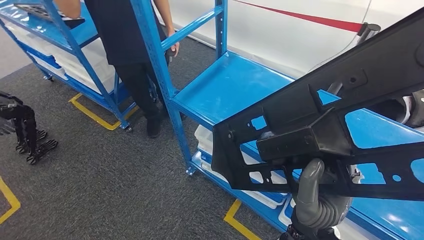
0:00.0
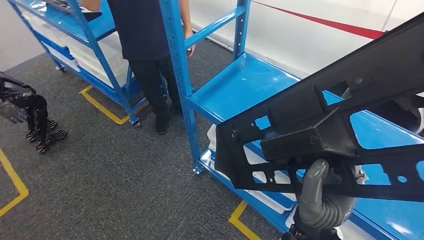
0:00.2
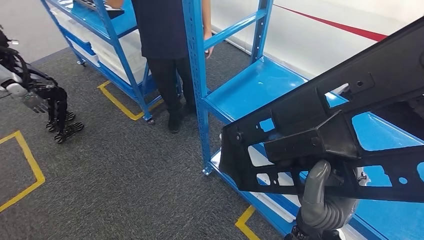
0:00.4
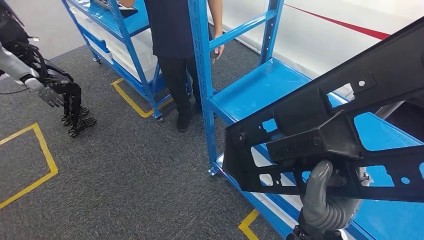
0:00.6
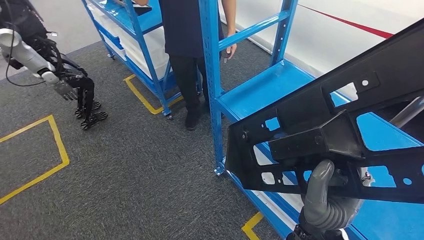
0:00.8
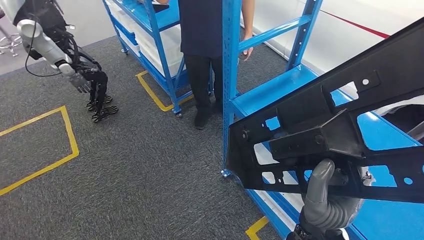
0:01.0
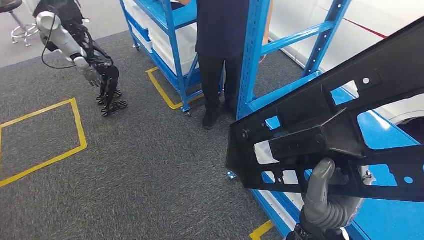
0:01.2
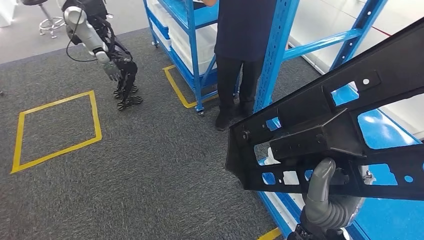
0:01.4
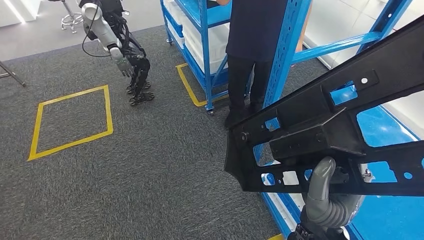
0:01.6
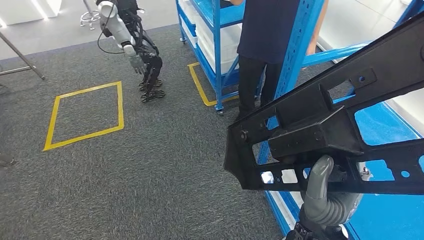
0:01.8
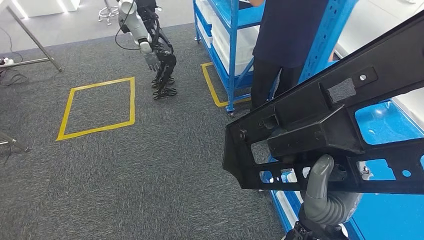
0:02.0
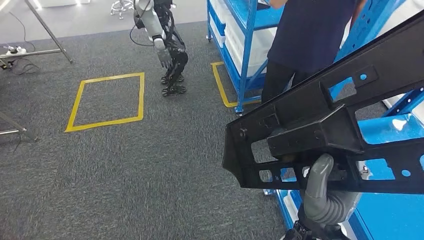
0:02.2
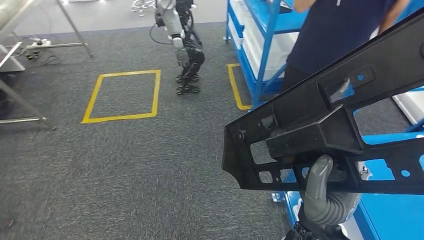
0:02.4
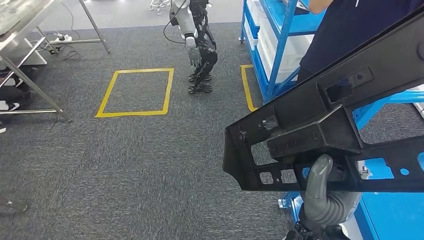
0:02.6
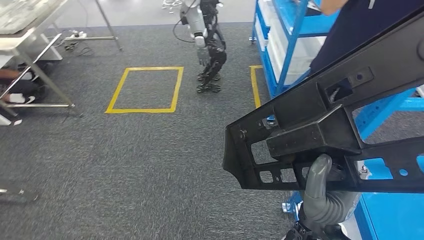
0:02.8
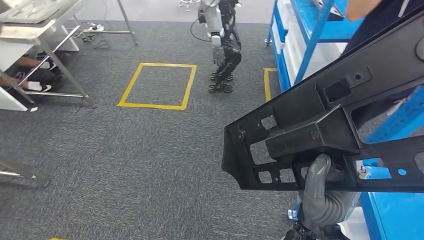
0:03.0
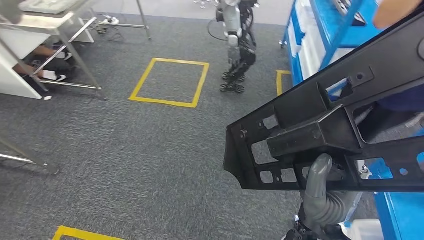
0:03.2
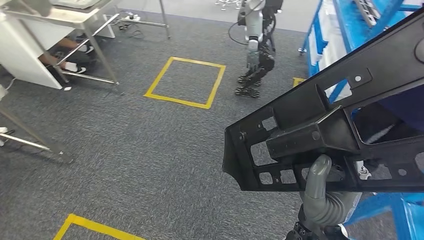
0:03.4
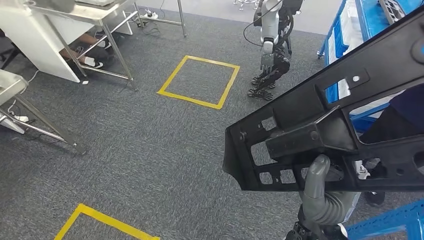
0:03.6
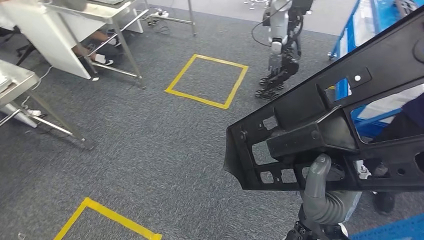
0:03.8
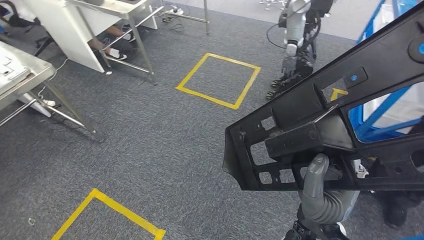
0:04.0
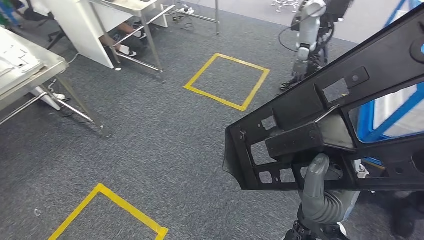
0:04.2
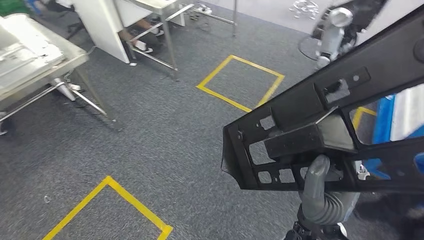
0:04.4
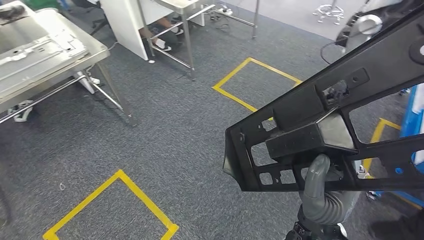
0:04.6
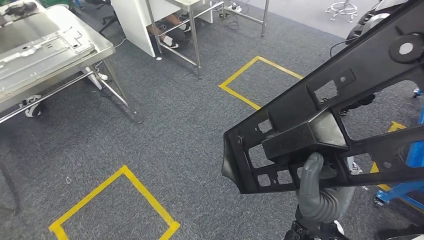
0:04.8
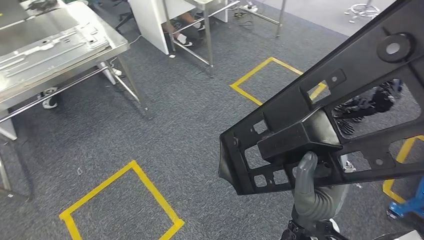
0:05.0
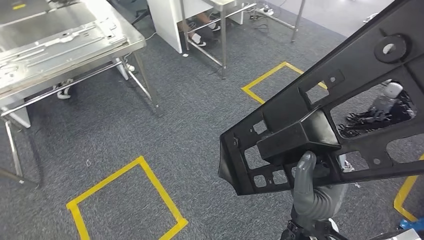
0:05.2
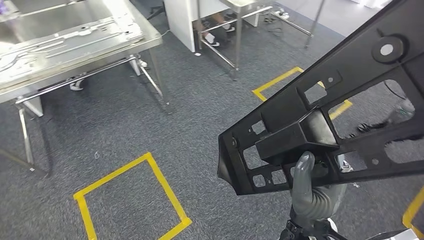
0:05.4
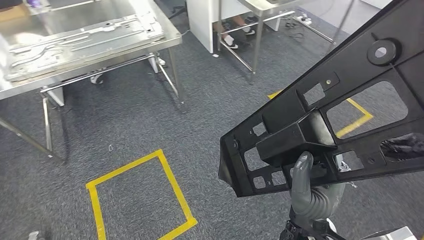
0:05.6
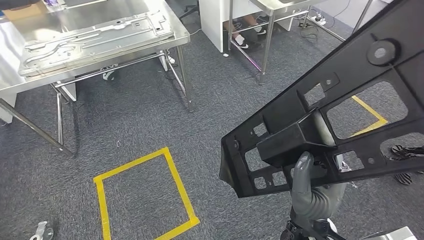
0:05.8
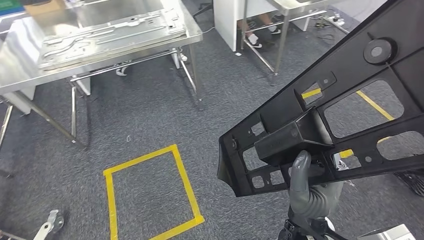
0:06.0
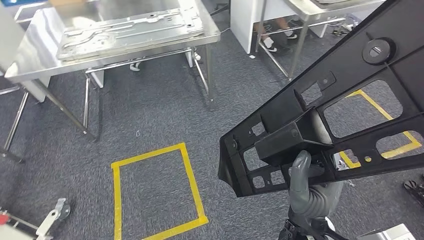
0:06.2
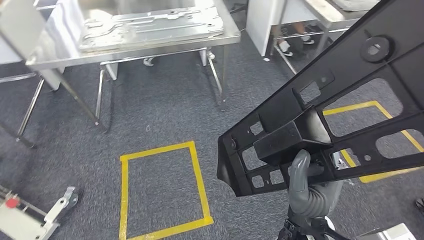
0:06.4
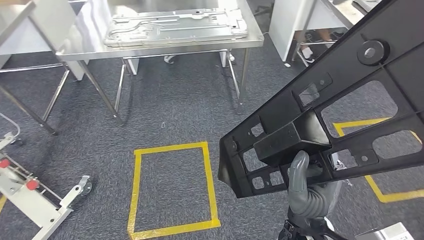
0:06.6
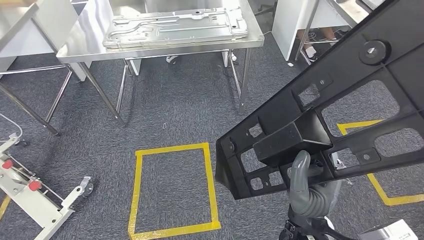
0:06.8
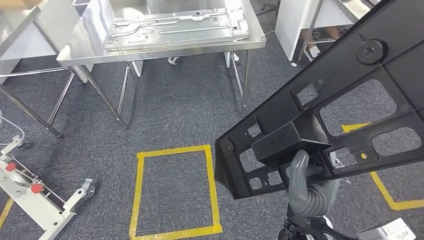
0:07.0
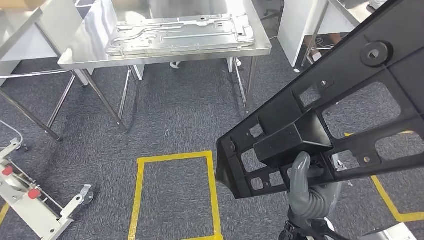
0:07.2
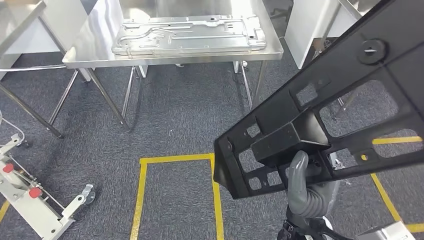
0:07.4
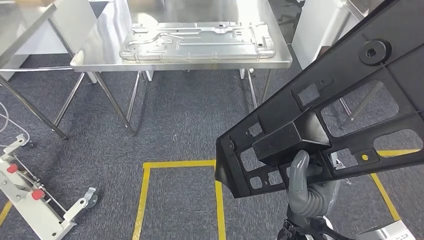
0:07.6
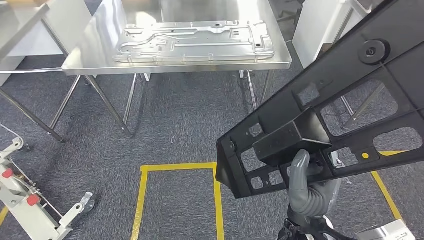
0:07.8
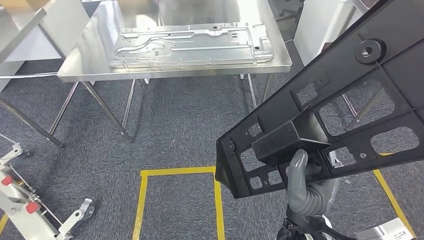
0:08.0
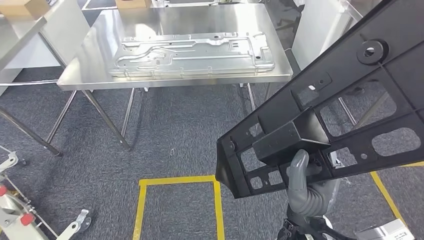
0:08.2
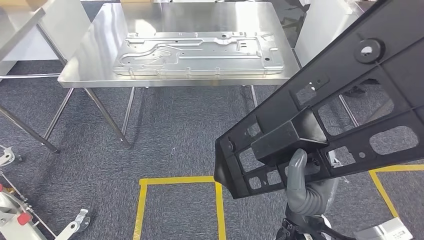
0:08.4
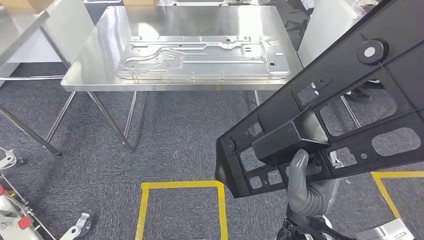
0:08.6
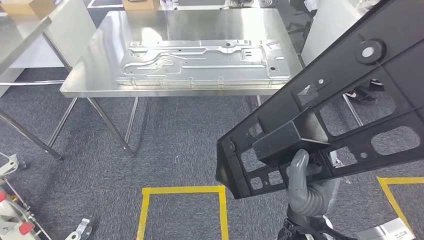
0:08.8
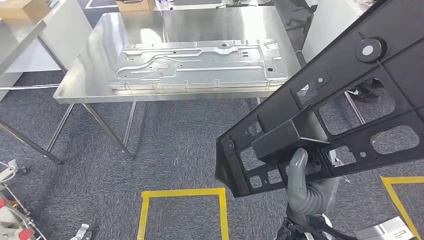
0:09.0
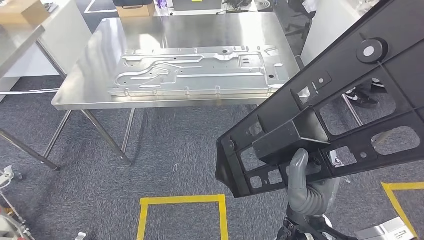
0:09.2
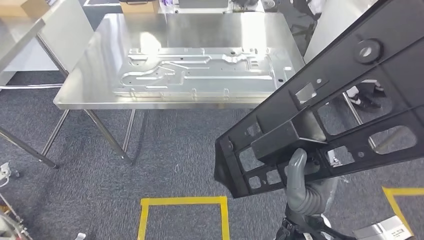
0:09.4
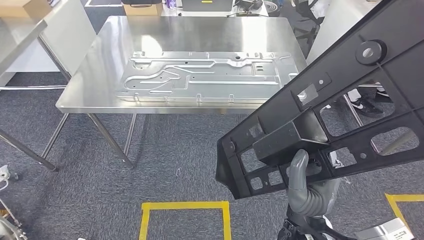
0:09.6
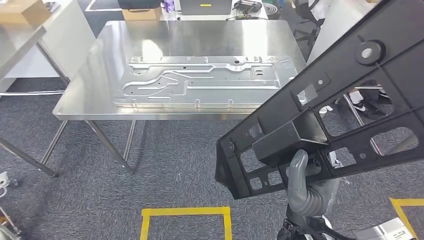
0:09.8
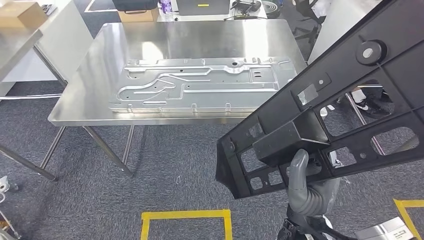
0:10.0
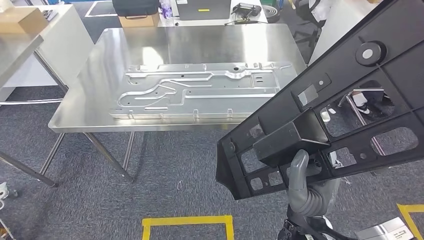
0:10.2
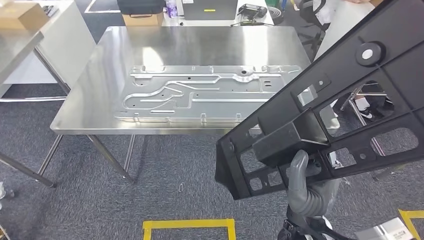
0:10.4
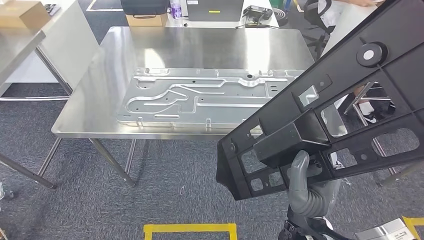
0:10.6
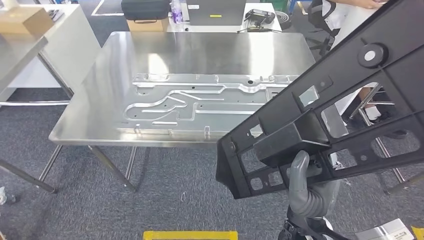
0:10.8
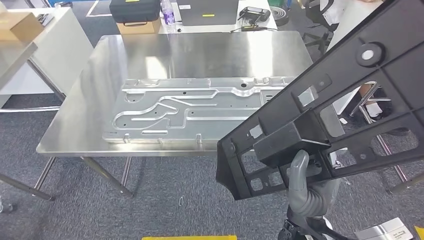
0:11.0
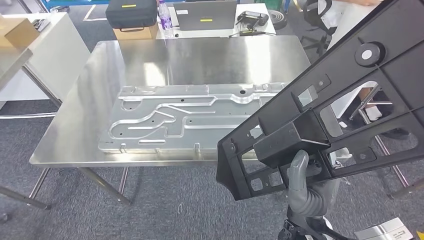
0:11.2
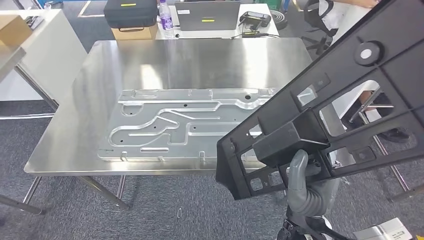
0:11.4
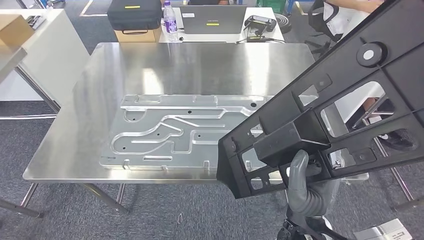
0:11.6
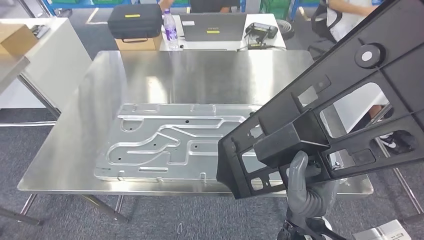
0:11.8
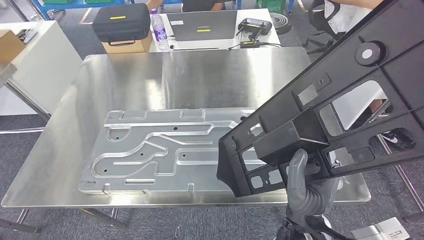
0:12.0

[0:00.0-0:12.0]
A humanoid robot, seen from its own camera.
Step, 0:00.0 to 0:09.6: Move the large material to the workbench.

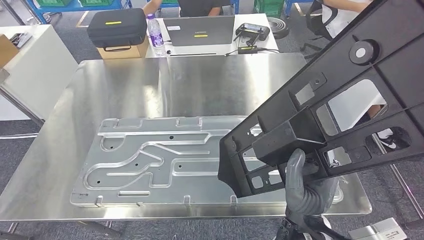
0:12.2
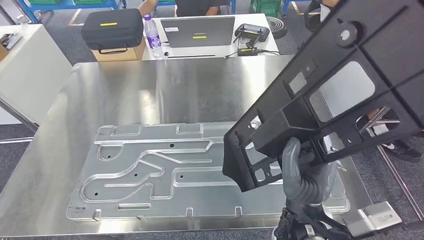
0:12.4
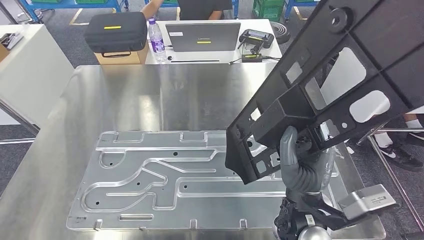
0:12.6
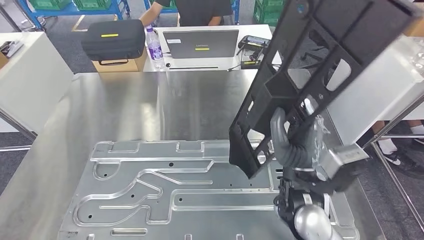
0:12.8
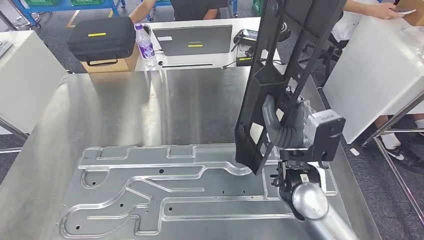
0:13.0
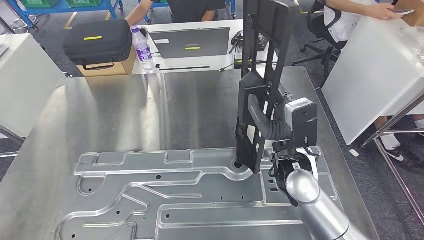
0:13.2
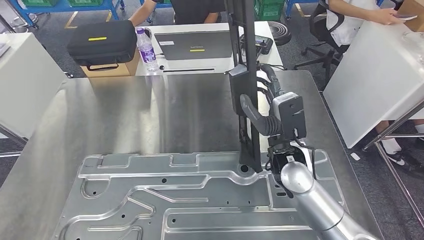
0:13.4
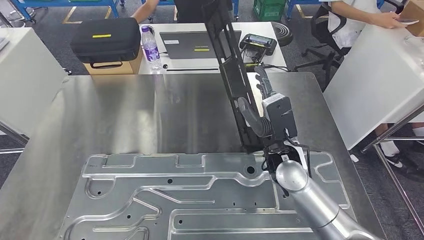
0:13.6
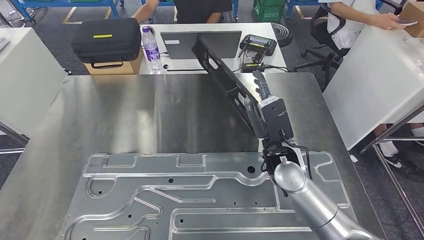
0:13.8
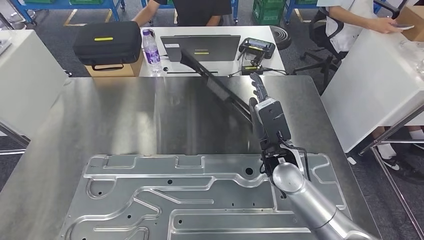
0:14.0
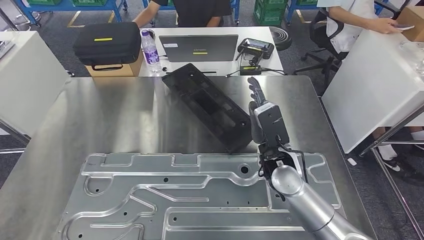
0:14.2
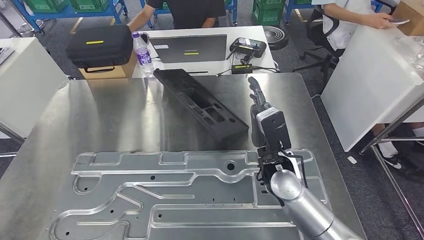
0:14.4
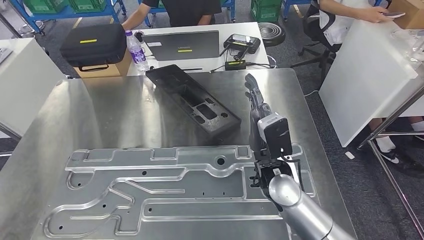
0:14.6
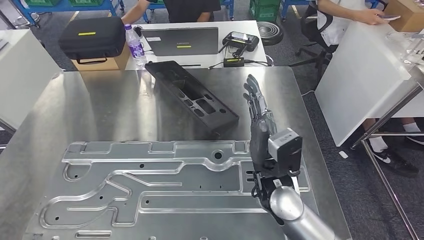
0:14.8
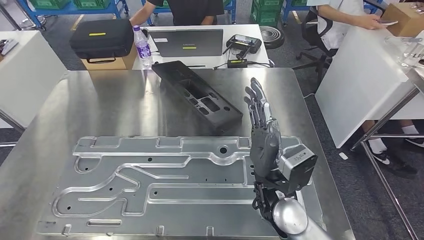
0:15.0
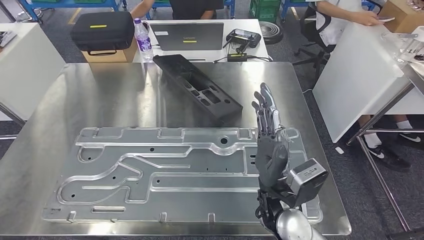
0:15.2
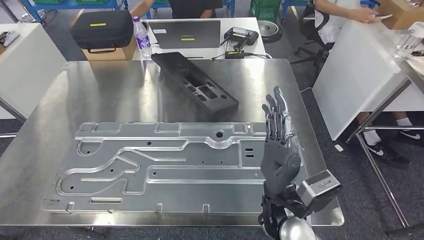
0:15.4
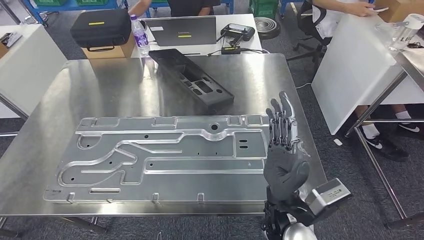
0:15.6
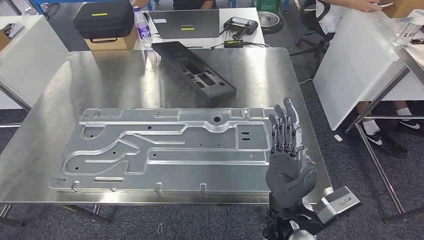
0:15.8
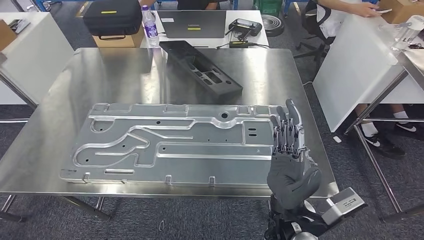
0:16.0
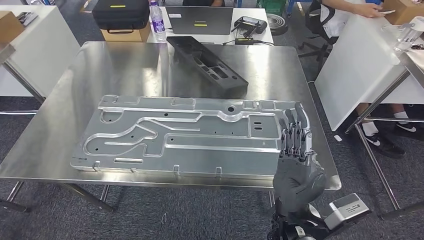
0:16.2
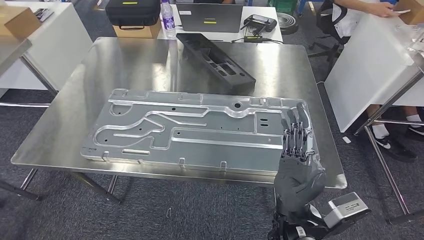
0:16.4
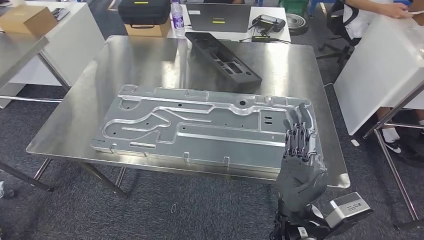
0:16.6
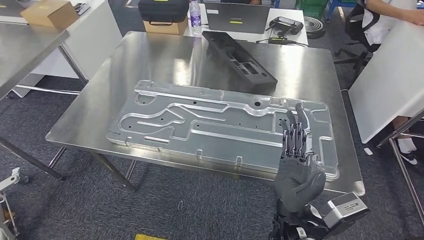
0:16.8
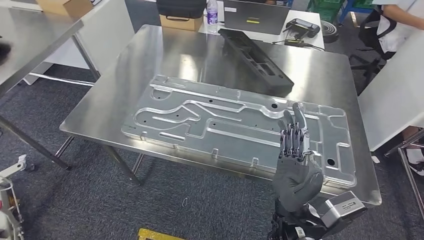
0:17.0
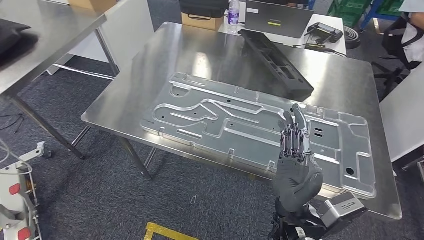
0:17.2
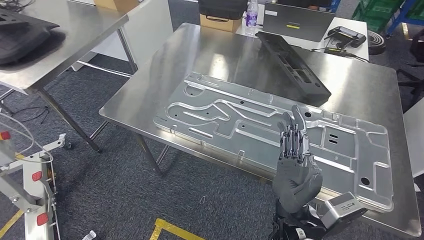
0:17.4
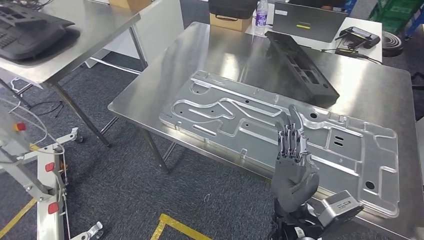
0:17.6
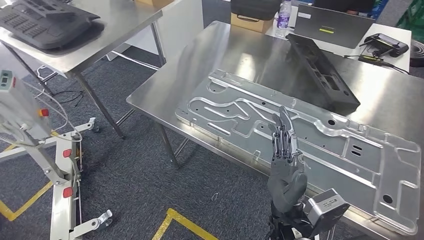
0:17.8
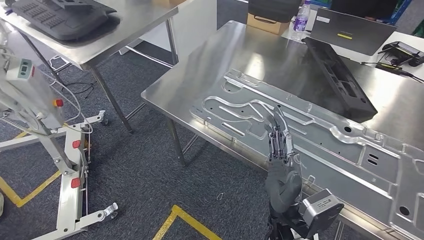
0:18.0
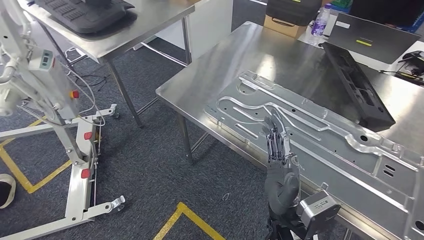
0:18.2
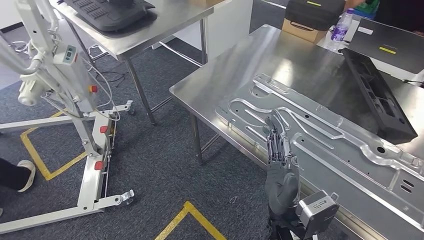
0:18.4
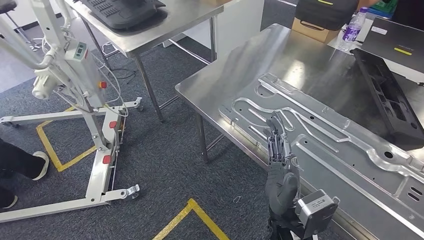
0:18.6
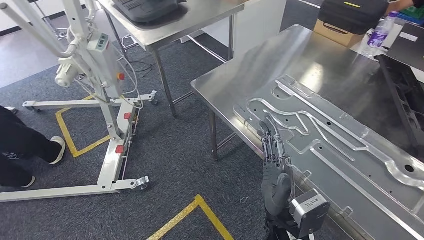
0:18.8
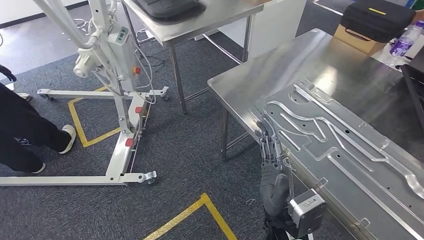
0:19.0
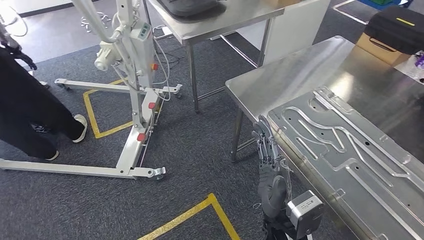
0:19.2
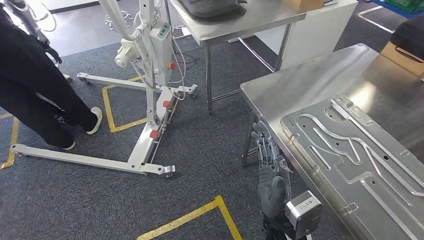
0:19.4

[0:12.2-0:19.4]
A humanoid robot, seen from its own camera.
Step, 0:12.2 to 0:17.4: Insert the large material into the corresponding slot on the workbench.
